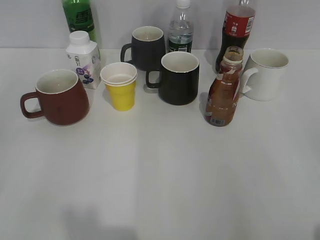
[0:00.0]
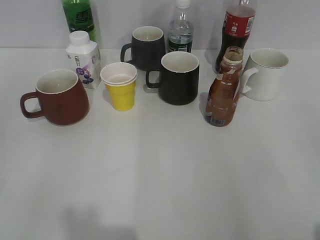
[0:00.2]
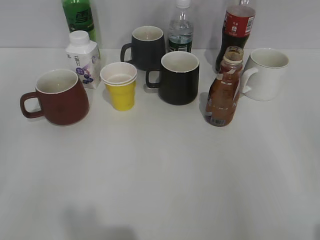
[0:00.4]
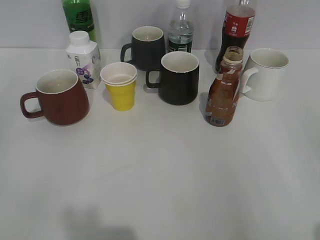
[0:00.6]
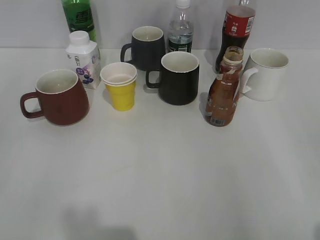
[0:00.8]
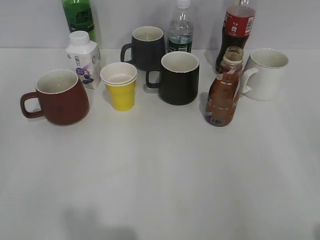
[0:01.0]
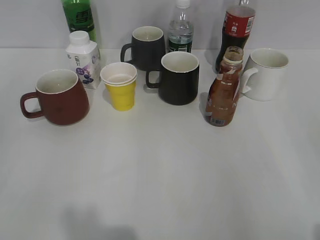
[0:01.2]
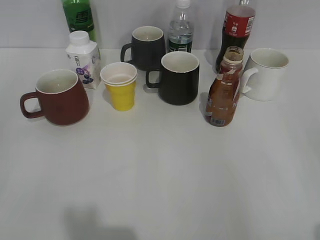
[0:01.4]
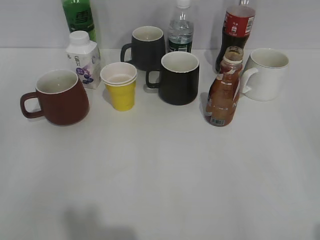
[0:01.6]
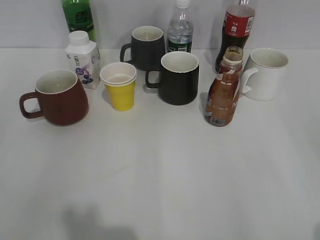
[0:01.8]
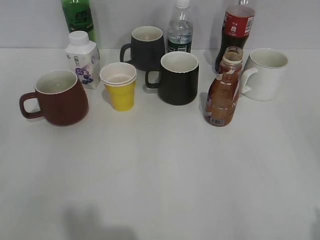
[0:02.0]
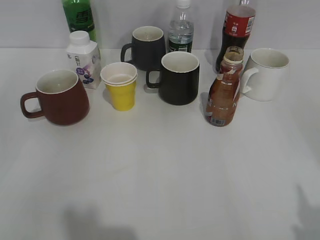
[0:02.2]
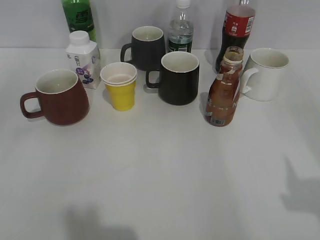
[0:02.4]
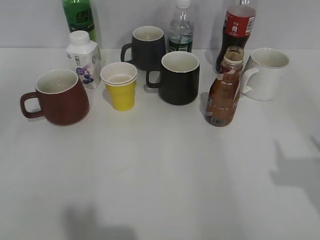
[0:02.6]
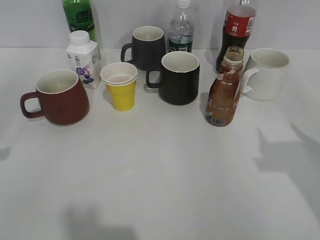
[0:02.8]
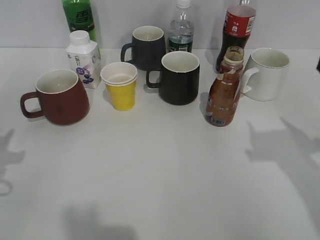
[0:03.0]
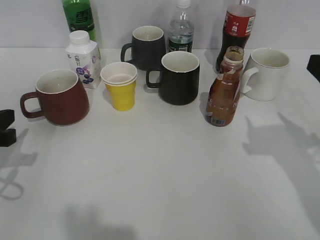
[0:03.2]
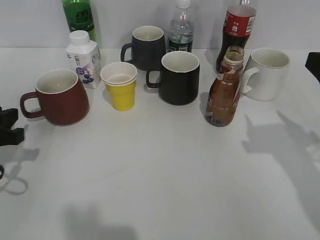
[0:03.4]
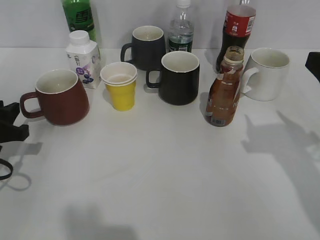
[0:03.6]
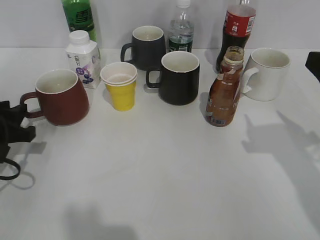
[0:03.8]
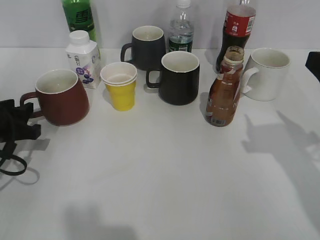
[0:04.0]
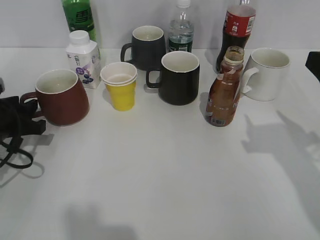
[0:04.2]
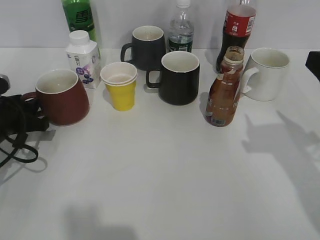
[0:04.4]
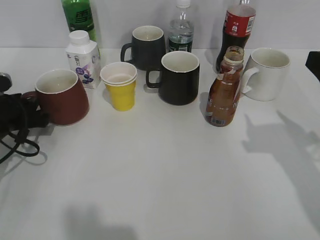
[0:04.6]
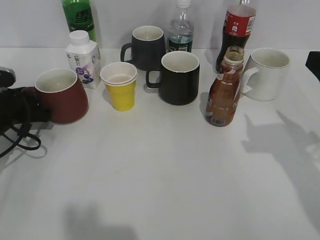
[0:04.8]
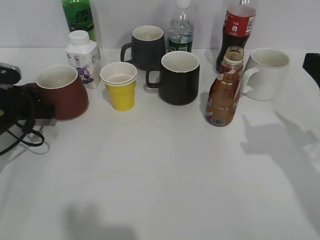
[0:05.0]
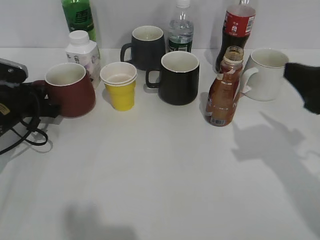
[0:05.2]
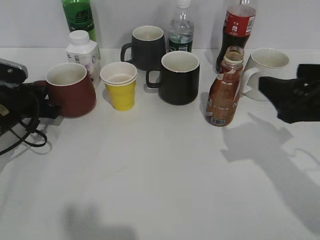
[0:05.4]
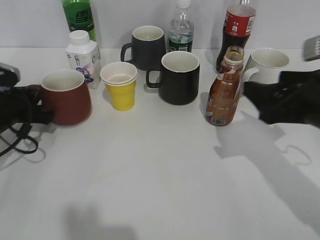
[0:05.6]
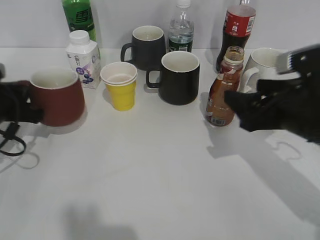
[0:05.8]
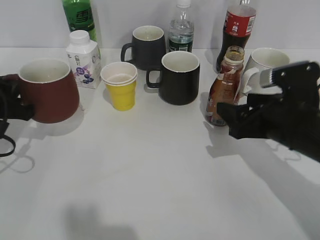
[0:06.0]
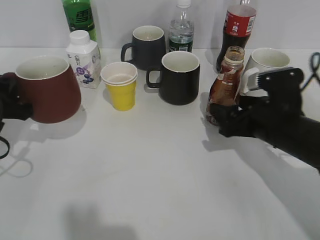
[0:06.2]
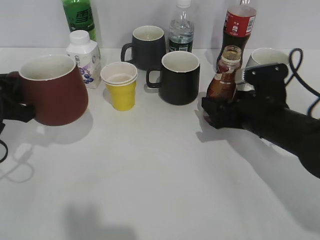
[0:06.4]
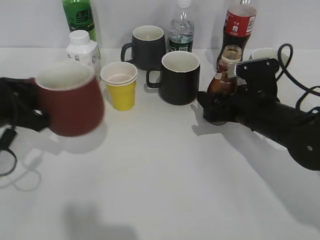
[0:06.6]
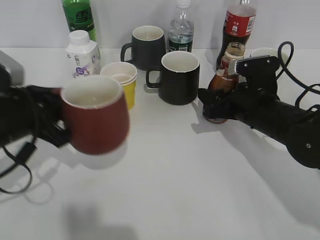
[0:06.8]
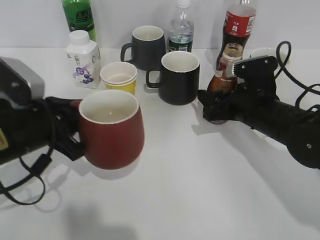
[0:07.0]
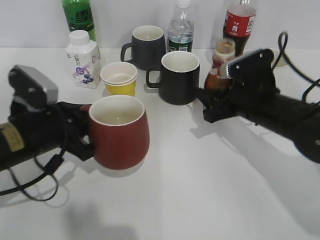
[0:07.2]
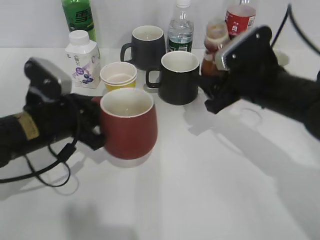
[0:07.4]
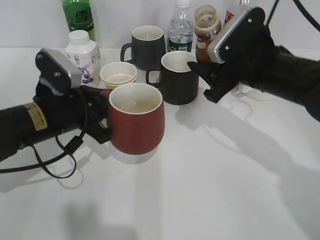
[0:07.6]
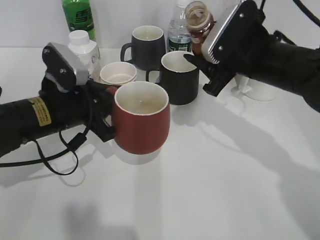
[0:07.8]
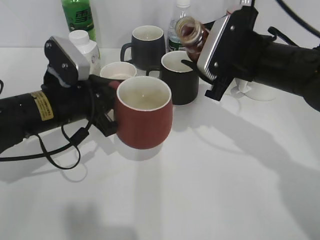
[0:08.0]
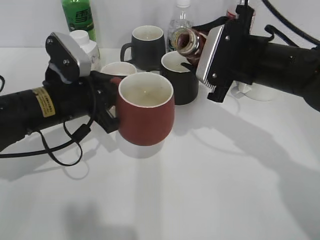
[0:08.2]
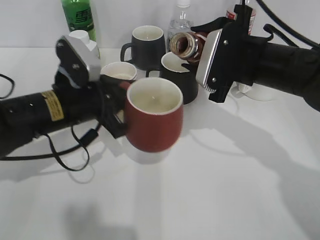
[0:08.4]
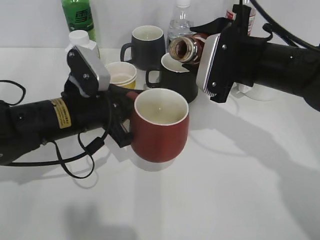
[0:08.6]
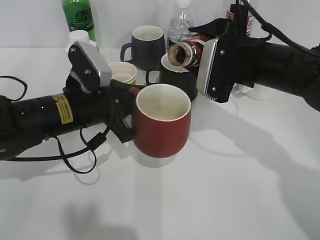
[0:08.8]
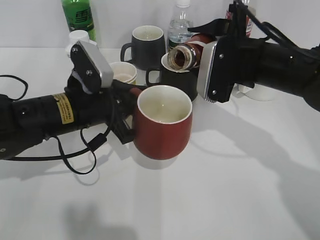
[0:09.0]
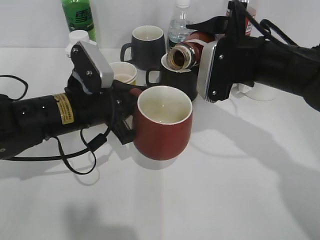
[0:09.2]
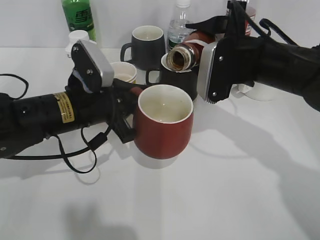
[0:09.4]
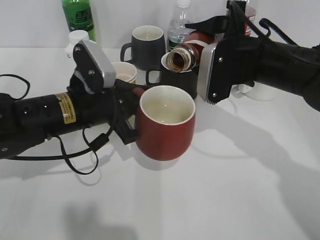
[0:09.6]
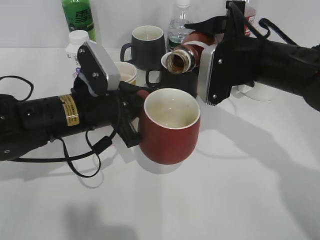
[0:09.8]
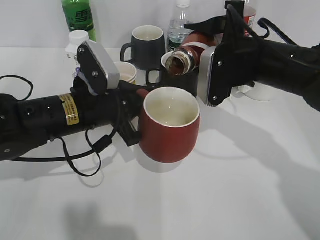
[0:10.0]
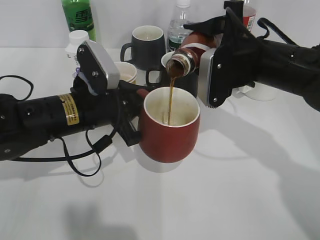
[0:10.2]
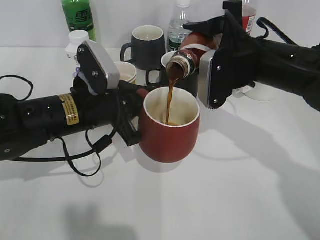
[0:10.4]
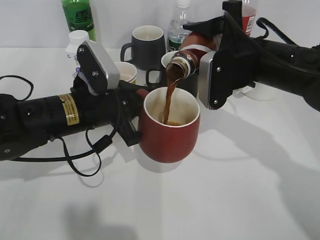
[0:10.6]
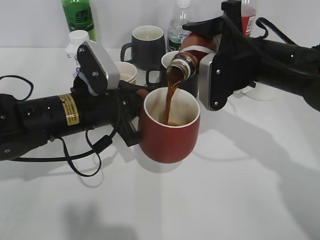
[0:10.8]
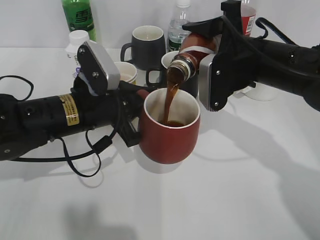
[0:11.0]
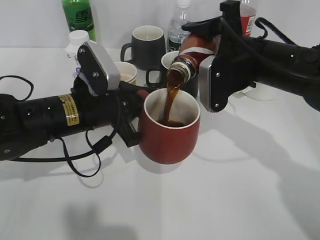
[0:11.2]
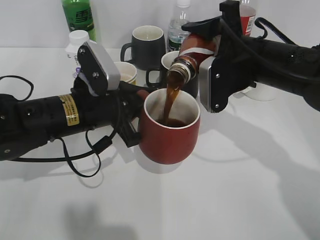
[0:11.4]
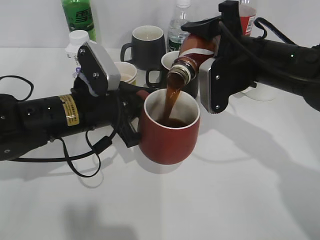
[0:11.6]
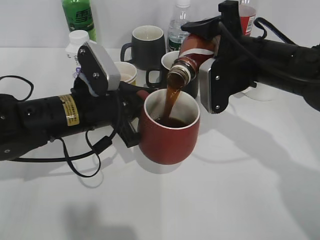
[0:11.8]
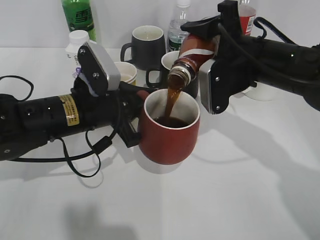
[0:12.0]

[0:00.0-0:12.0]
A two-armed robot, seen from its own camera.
Step, 0:02.0 to 0:05.6: Grasp the red cup with left gripper.
Step, 0:05.8 to 0:06.6: Grasp the bottle with coffee with right gripper.
0:03.0 to 0:04.4: The left gripper goes roughly 10 cm forward and downward.
0:04.4 to 0:06.0: The left gripper closes its fingers, while the right gripper moves downward and to the left, roughly 10 cm.
0:06.0 to 0:07.6: The left gripper heads to the right, covering approximately 10 cm. Meanwhile the right gripper goes about 5 cm forward, and closes its fingers.
0:09.0 to 0:10.4: The grippers move only a little.
0:10.4 to 0:12.0: There are only small adjustments of the grippers.

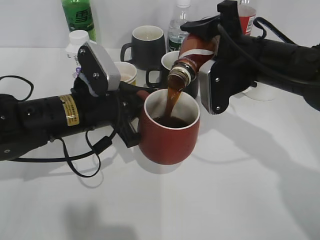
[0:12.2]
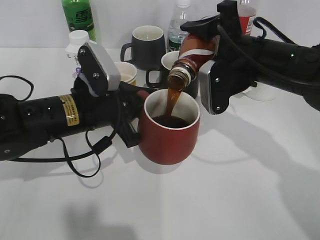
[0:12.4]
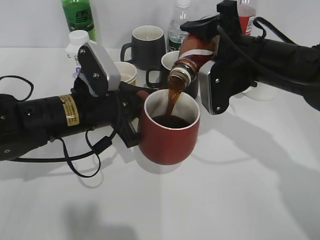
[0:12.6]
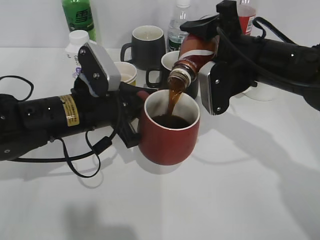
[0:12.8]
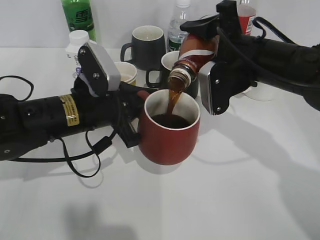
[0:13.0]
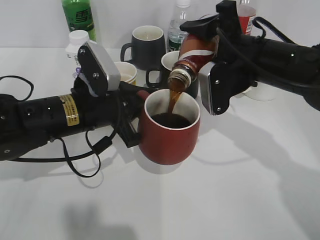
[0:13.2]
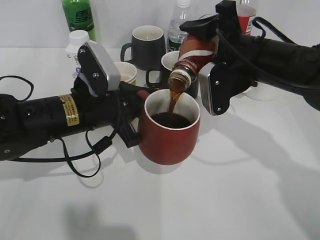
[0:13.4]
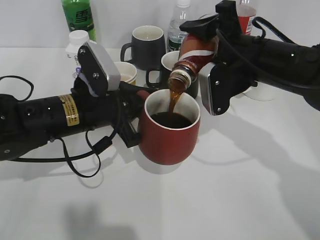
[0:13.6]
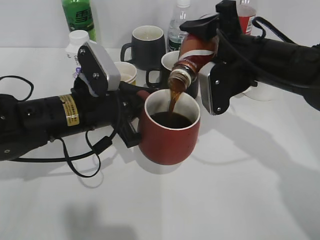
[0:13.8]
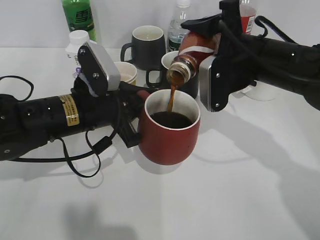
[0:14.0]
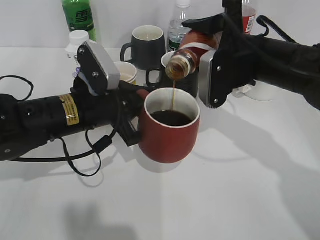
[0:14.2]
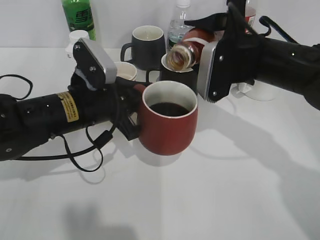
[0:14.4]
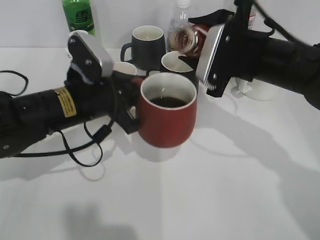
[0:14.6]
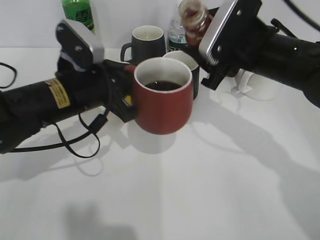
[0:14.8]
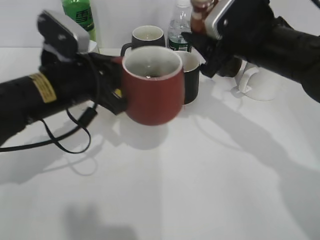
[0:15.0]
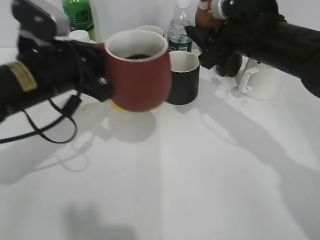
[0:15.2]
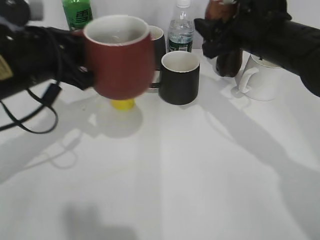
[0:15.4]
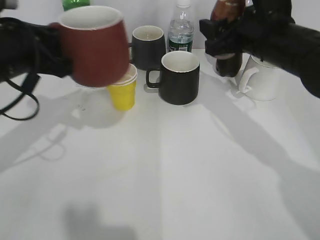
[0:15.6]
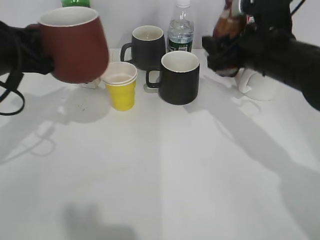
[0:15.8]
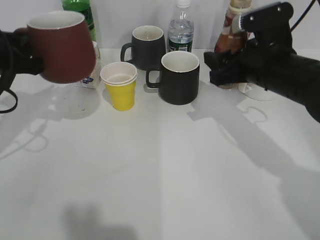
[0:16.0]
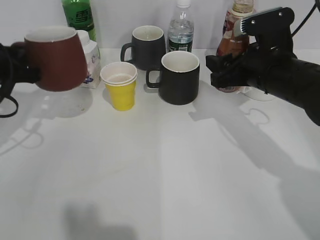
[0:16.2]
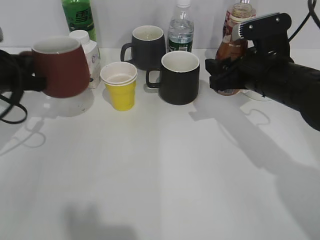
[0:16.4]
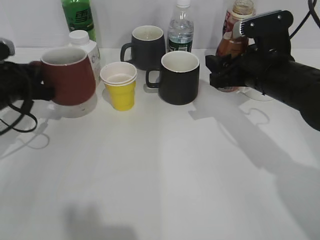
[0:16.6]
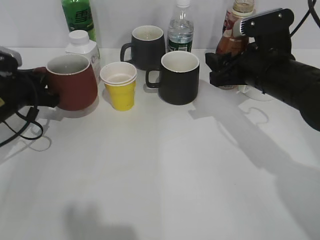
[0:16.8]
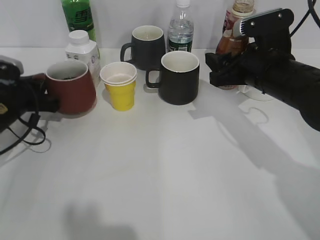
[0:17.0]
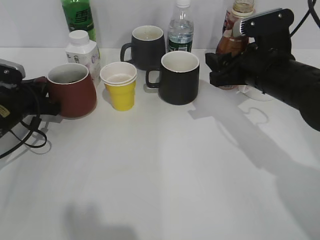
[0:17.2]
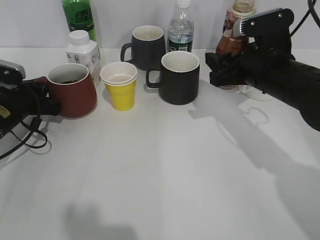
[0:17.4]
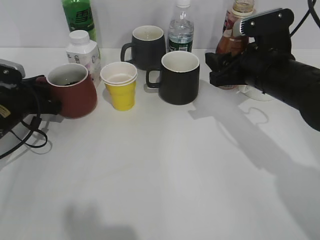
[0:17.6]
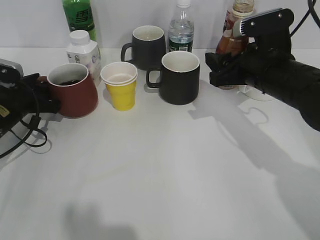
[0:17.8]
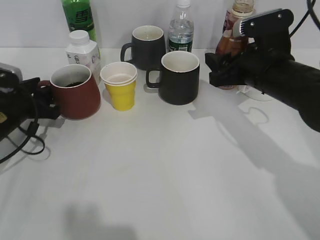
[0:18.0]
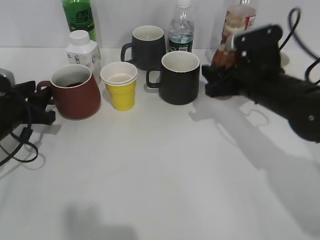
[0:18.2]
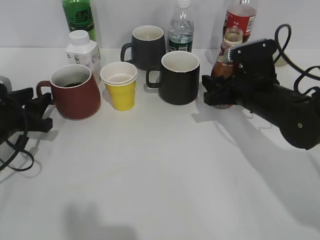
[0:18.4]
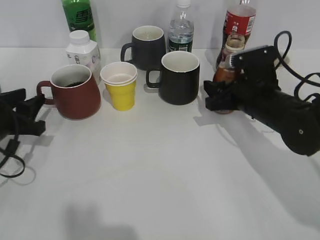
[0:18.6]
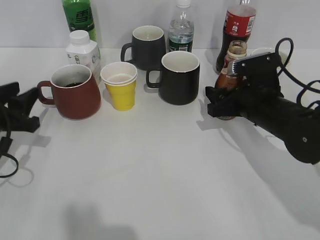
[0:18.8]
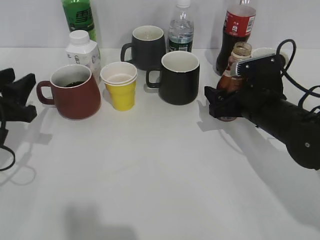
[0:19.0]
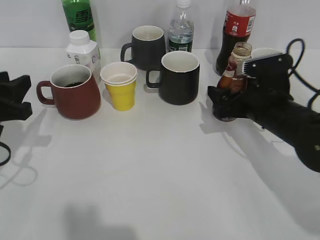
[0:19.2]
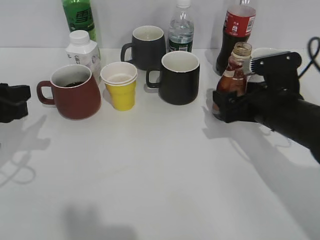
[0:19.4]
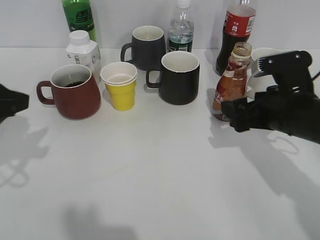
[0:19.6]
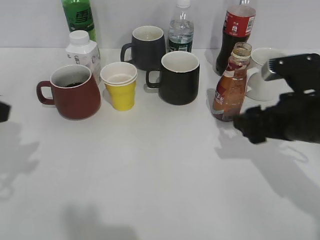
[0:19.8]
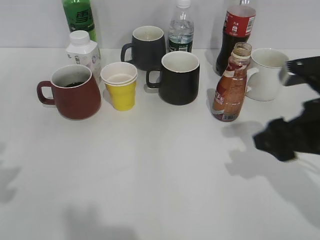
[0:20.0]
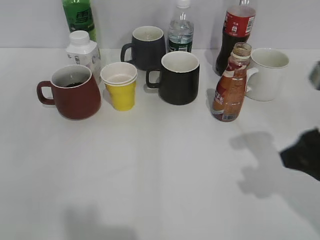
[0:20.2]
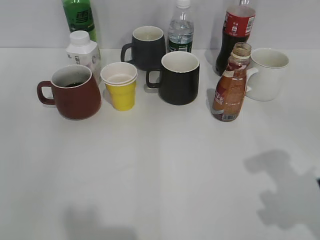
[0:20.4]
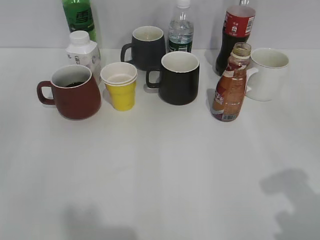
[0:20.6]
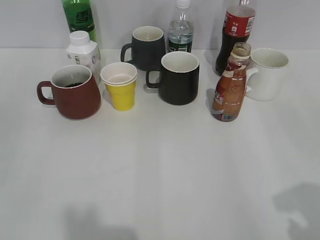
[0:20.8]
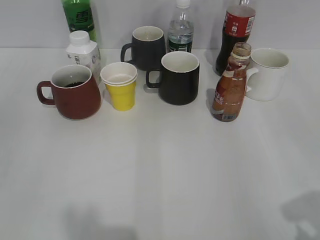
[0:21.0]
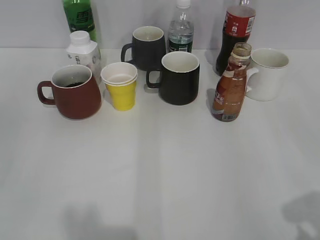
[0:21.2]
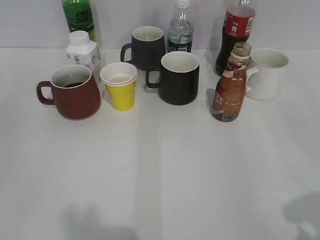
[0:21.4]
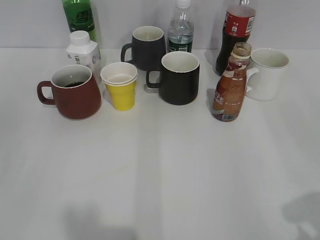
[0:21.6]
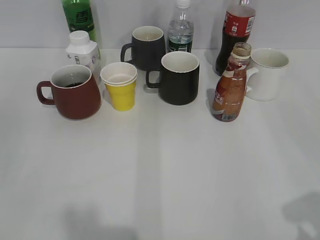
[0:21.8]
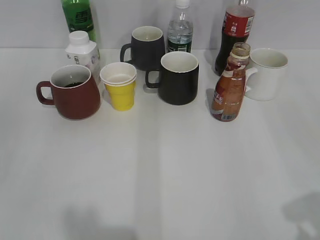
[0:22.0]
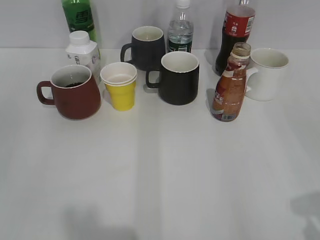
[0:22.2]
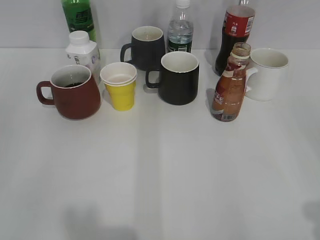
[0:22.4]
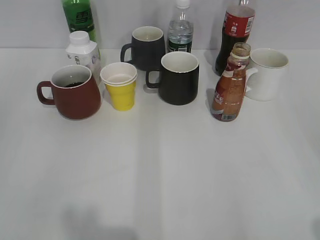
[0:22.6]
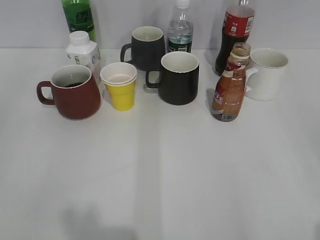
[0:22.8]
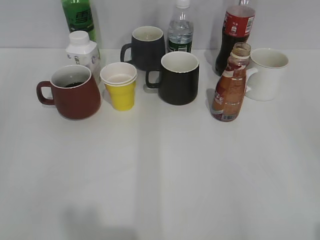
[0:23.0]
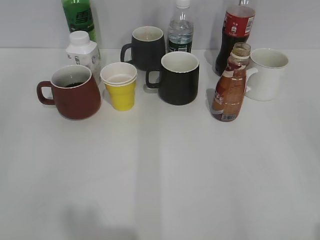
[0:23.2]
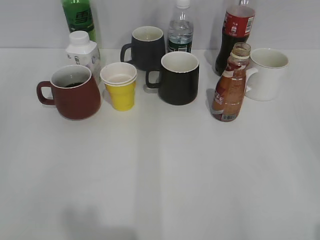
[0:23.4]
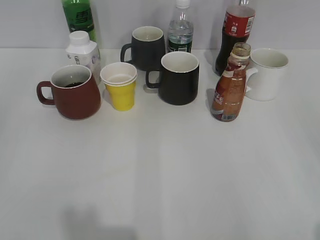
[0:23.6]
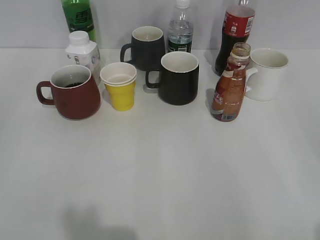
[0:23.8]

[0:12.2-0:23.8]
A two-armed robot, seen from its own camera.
Step, 0:12.2 to 0:14.4: Pour the coffee from bottle to cup with right gripper.
Step, 0:14.6 to 0:18.2: Place the red cup on the table with left gripper.
Step, 0:18.6 to 0:19.6: Place the coffee bottle on the table with right gripper.
0:12.2 to 0:13.6: Neither gripper changes place.
0:15.0 to 0:16.6: The right gripper changes place by some 5 cm. The left gripper is displaced to the left by roughly 15 cm.
0:16.6 to 0:18.0: The left gripper travels downward by about 5 cm, and opens.
0:18.0 to 0:19.4: The left gripper travels backward and upward by approximately 15 cm. The right gripper ends up roughly 5 cm from where it was, and opens its fingers.
0:19.4 to 0:21.0: The left gripper is displaced backward and upward by about 20 cm; the right gripper goes some 30 cm backward, upward and to the right, and closes up.
0:21.0 to 0:22.4: The grippers make only small movements.
